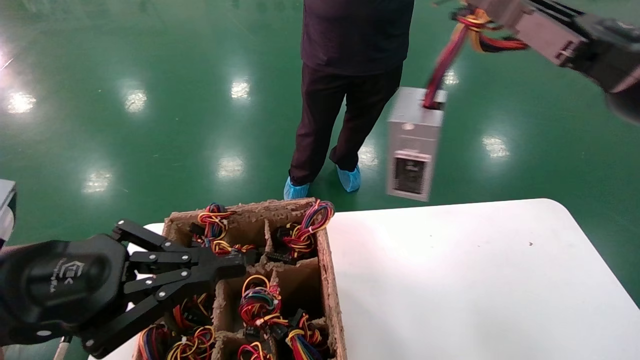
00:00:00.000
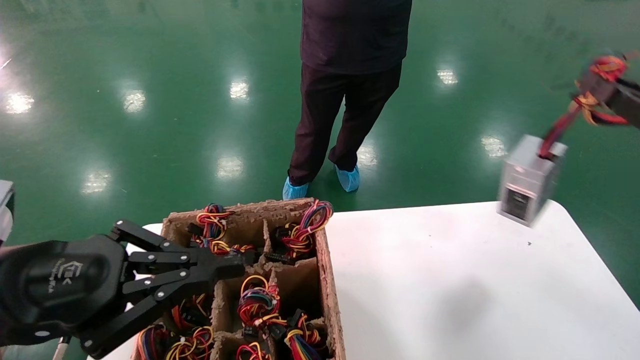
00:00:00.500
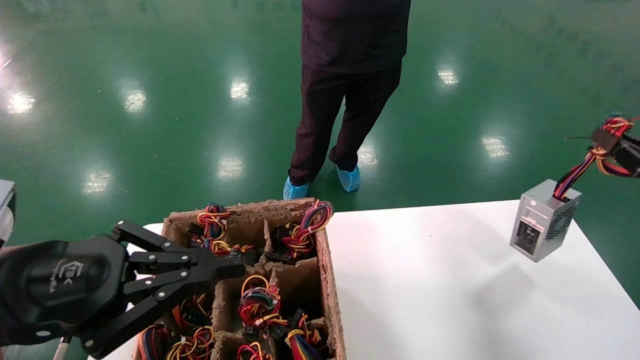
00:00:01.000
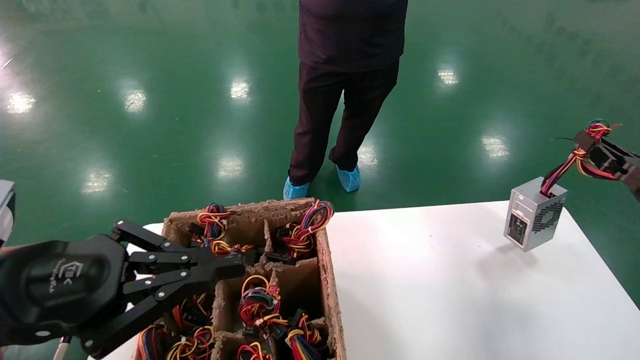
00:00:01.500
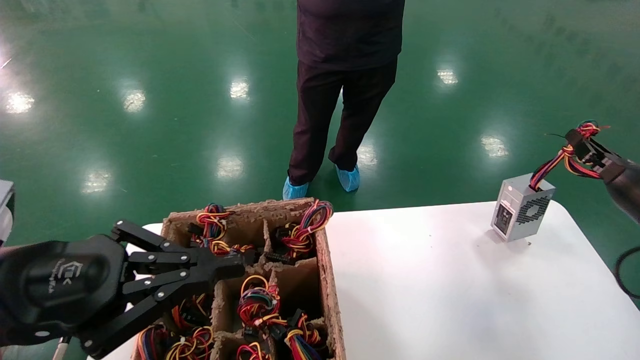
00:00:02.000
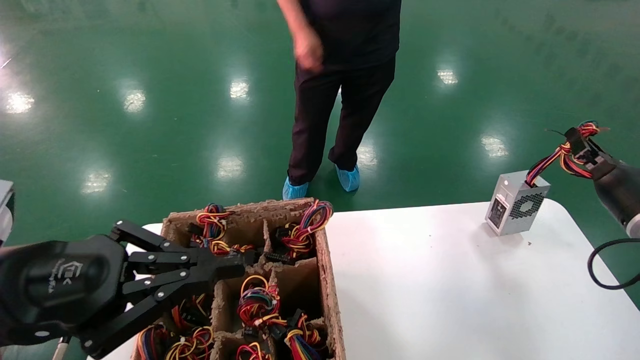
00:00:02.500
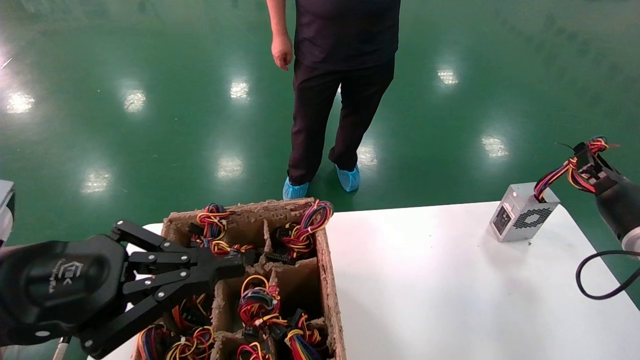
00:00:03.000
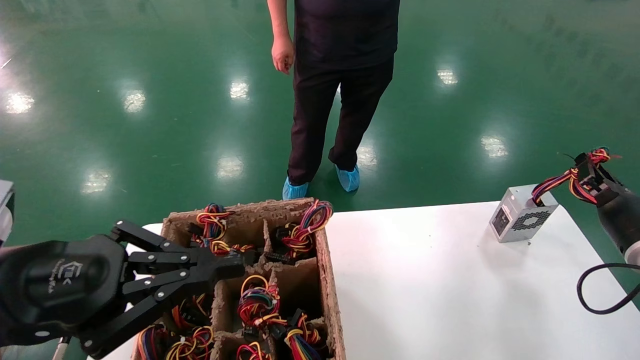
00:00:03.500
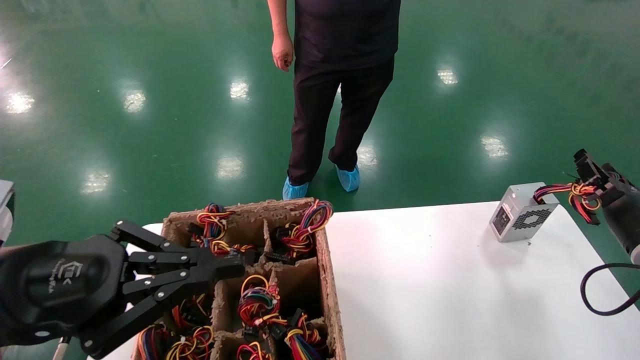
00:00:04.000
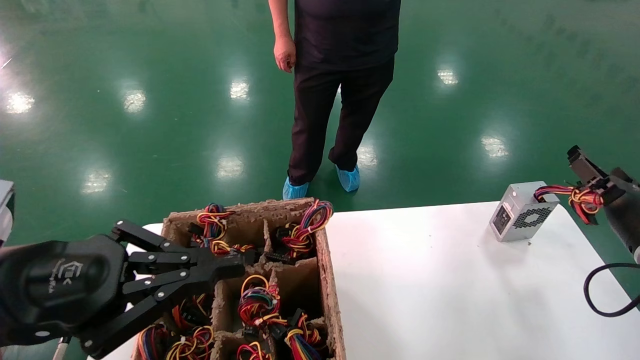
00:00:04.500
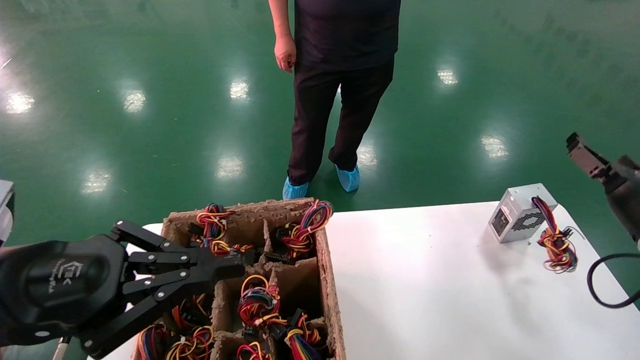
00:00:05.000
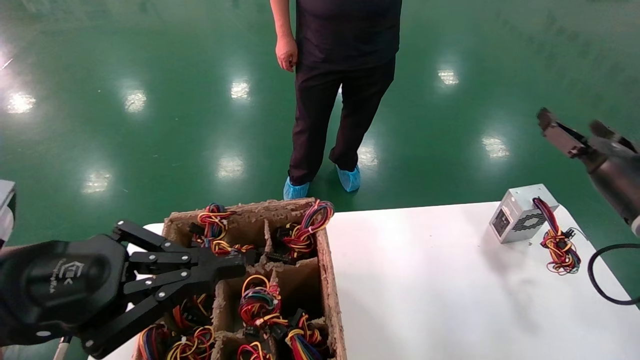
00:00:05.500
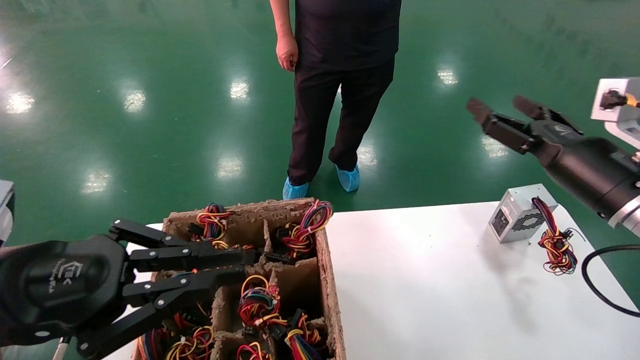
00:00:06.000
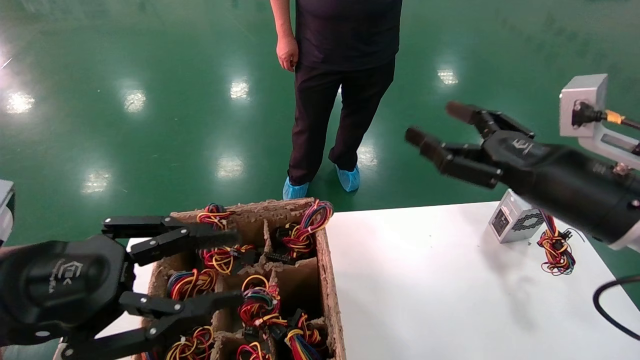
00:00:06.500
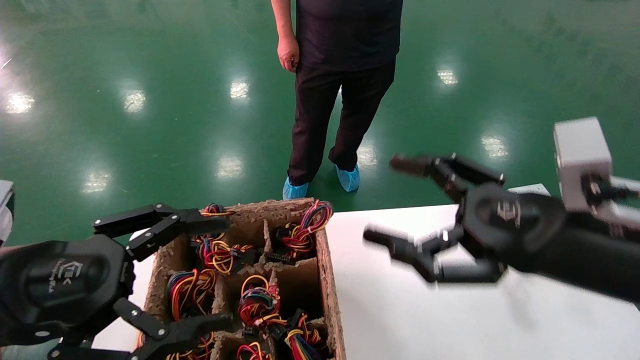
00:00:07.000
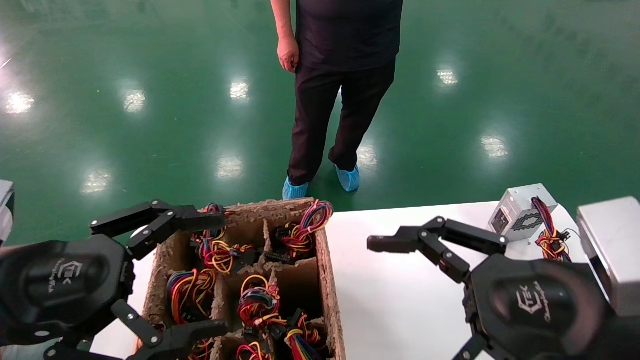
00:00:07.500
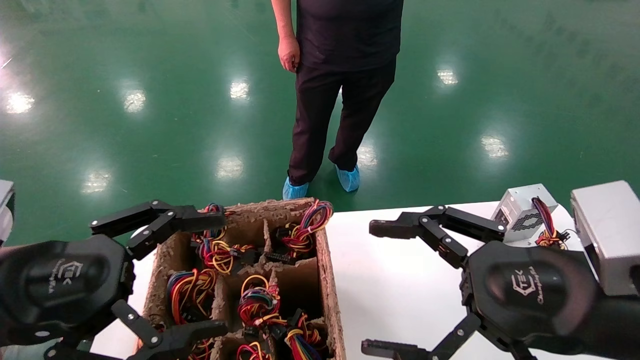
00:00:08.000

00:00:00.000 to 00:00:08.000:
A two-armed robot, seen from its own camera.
Step, 00:00:00.000 to 00:00:04.000: Place the main unit power supply in the designated area.
00:00:00.000 to 00:00:02.000: The right gripper heads to the right, downward and forward, covering approximately 25 cm.
00:00:02.000 to 00:00:04.000: The grippers make only small movements.
00:00:04.000 to 00:00:06.000: The right gripper shifts roughly 15 cm to the left and upward, and opens up.
00:00:06.000 to 00:00:08.000: The right gripper shifts approximately 20 cm backward and to the left. Meanwhile the left gripper opens up.
